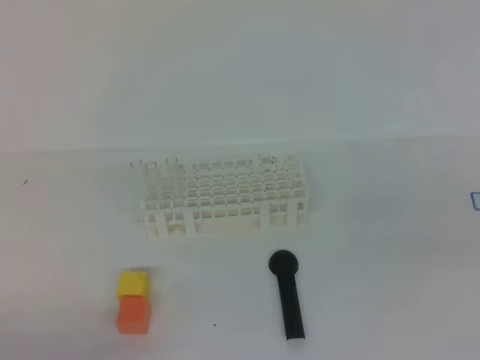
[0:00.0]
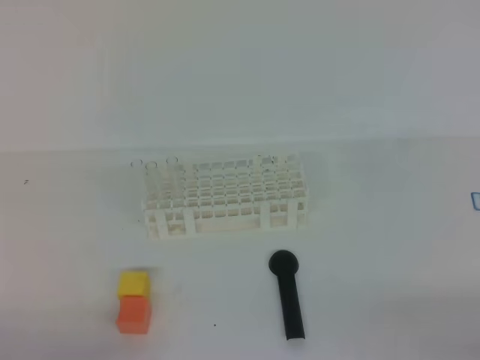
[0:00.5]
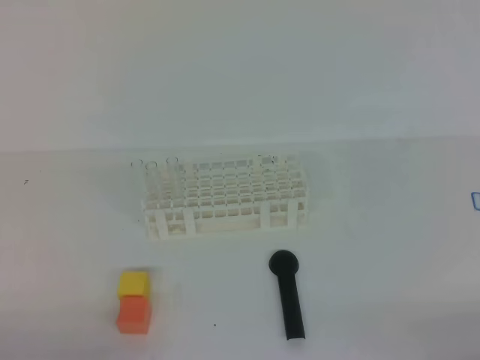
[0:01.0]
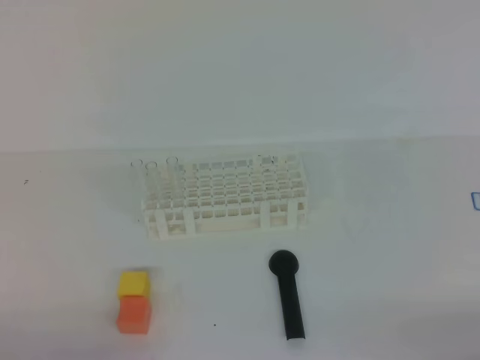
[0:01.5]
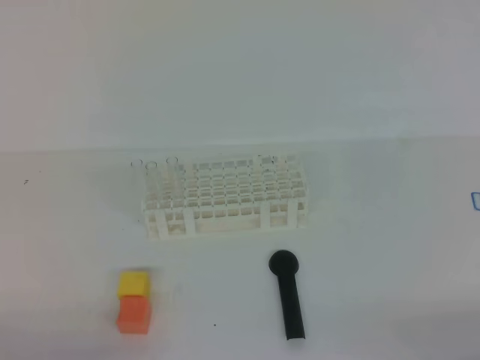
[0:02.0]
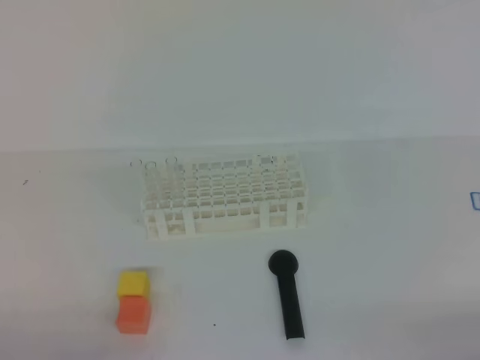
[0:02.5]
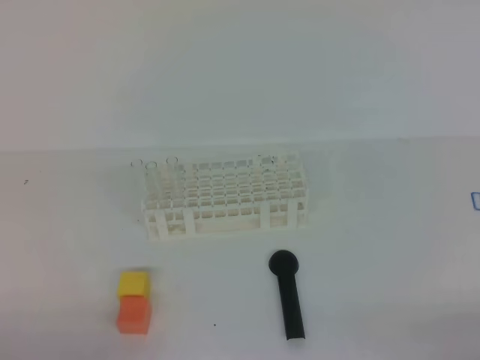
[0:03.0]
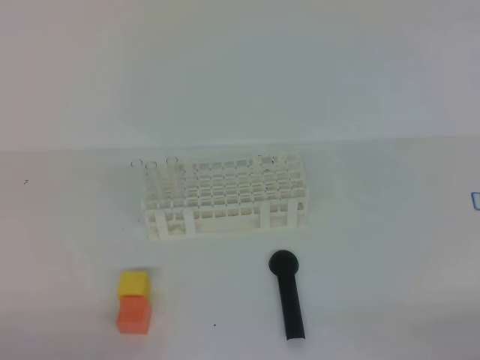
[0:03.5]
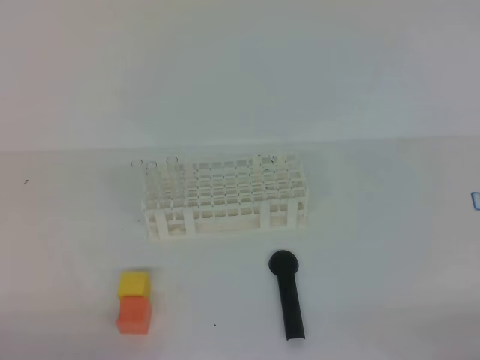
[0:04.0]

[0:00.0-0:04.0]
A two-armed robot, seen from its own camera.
0:02.0 to 0:04.0: Both grippers stay about where they are.

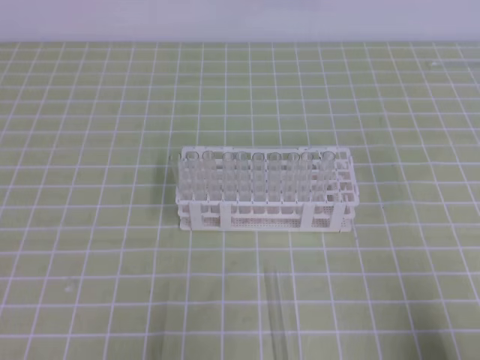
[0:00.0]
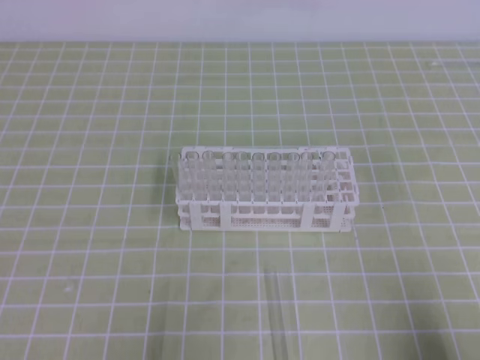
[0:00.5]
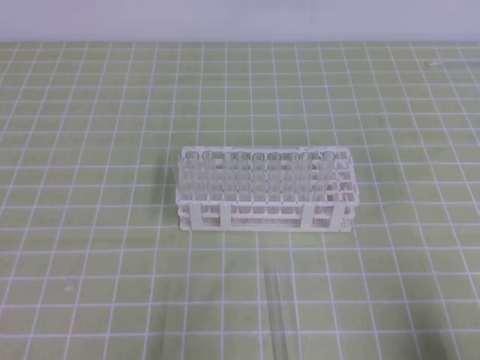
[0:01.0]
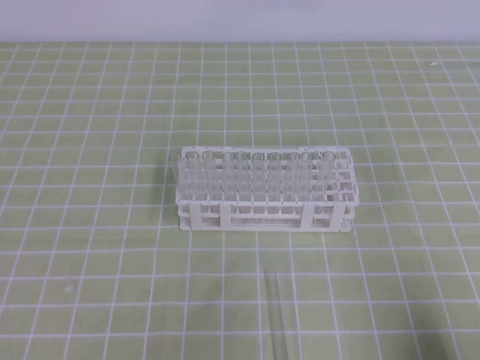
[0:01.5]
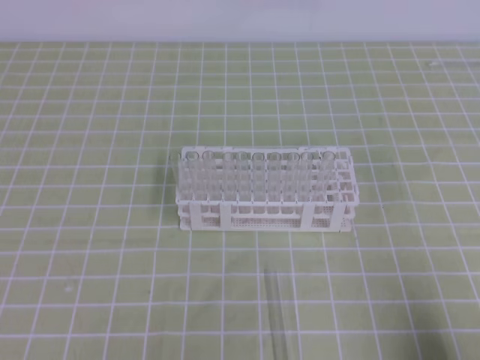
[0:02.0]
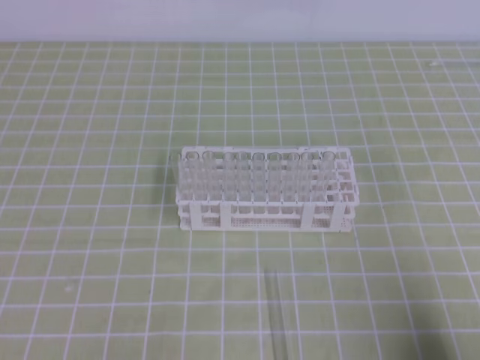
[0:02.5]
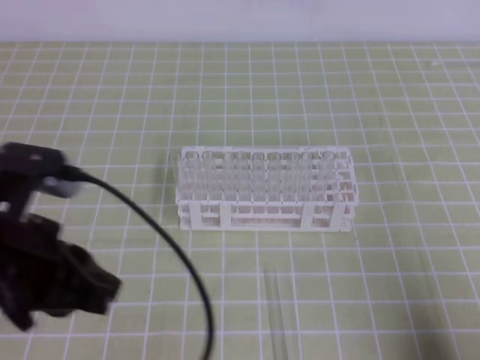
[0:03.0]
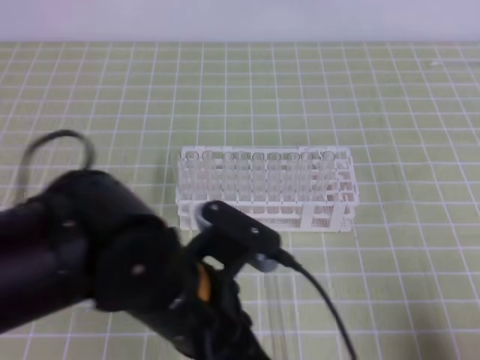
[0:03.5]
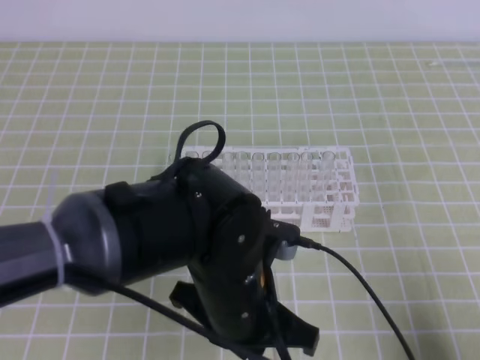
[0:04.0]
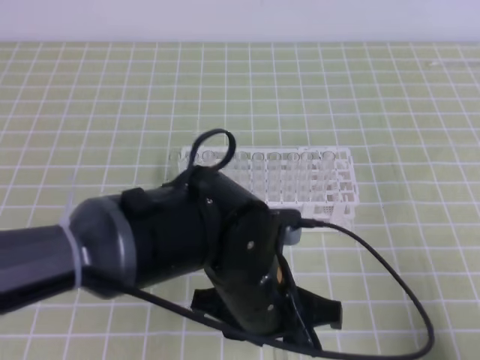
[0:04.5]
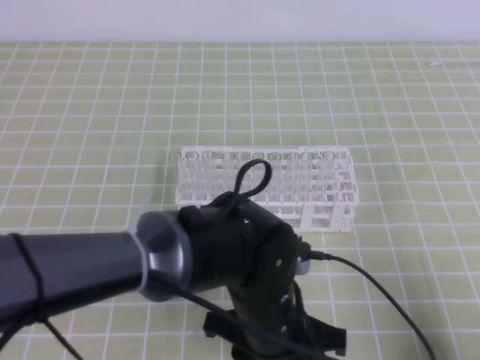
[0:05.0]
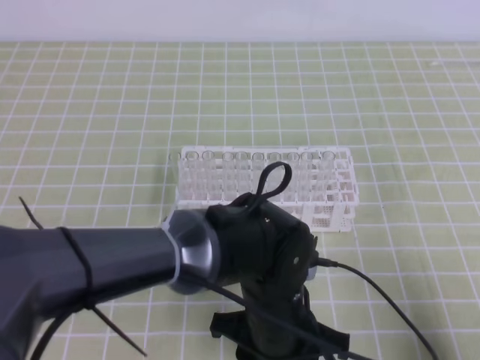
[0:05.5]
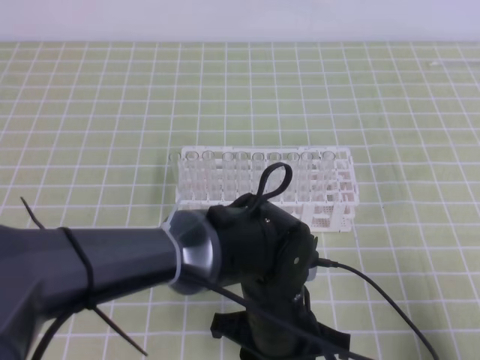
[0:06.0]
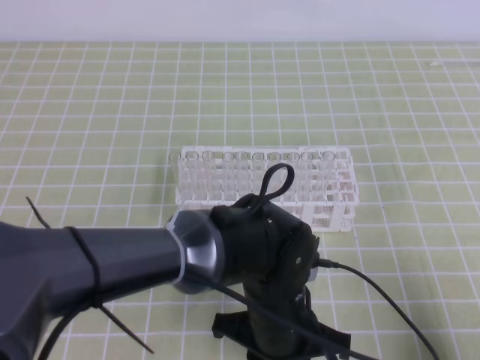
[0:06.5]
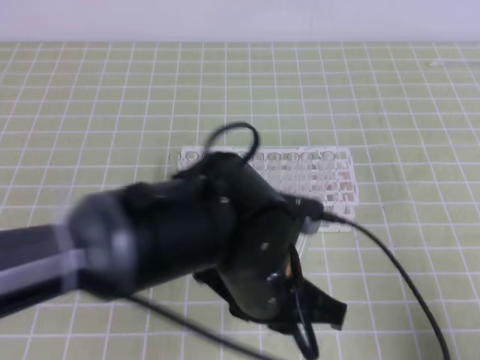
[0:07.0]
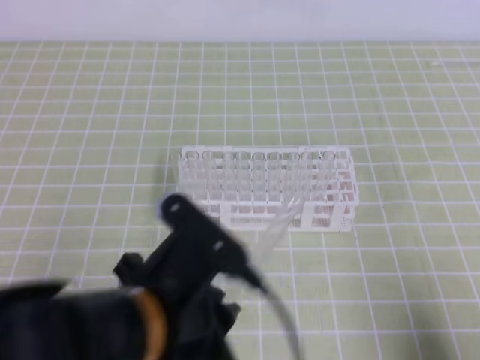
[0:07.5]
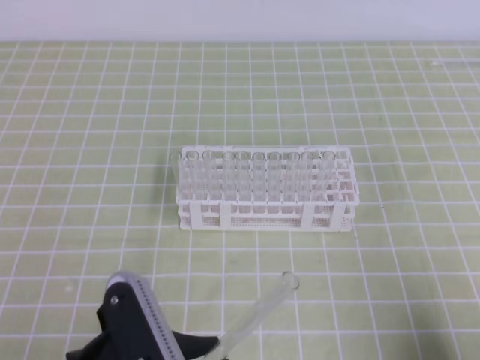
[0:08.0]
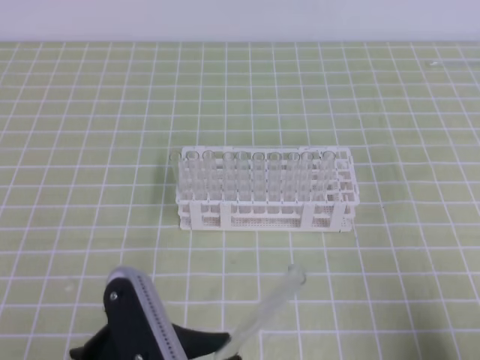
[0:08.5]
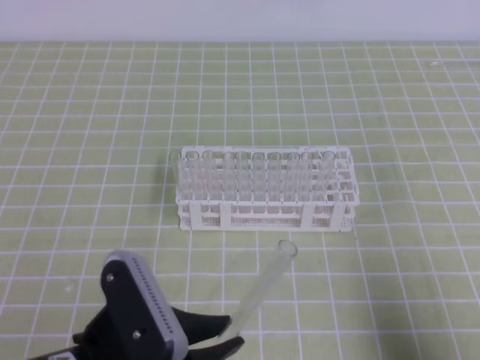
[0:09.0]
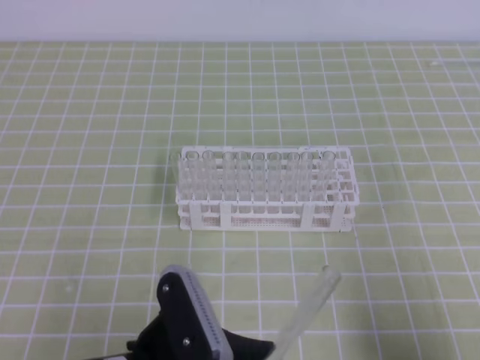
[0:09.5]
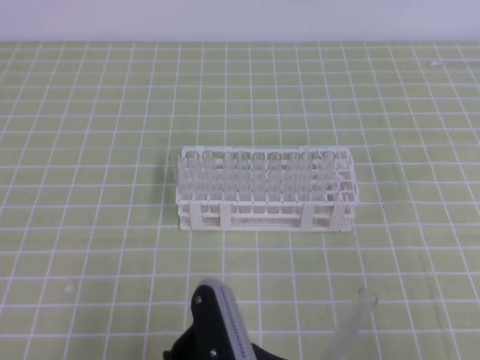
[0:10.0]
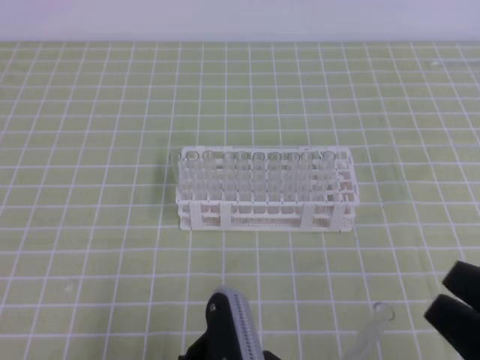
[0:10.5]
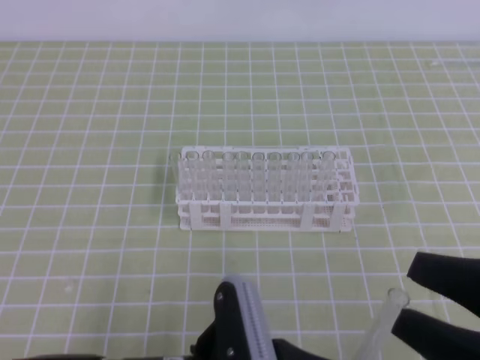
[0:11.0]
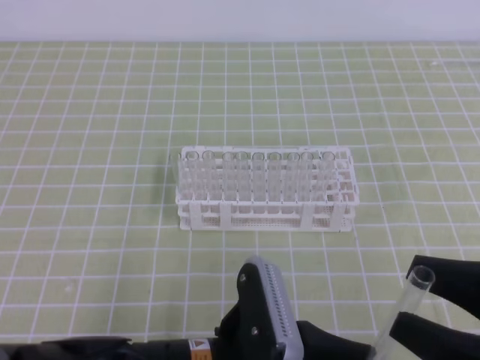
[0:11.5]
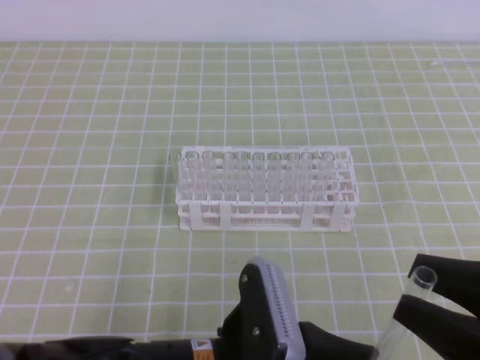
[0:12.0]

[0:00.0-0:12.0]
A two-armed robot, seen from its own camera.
0:02.0 to 0:04.0: The left gripper is displaced to the right and forward by approximately 30 cm.
0:04.0 to 0:06.0: The left gripper travels downward by about 5 cm, and opens.
0:06.0 to 0:08.0: The left gripper heads to the left, backward and upward, covering some 20 cm.
0:08.0 to 0:10.0: The right gripper ends up approximately 5 cm from where it was; the left gripper travels to the right by about 5 cm.
0:10.0 to 0:12.0: The right gripper ends up approximately 5 cm from where it was, and opens its fingers.

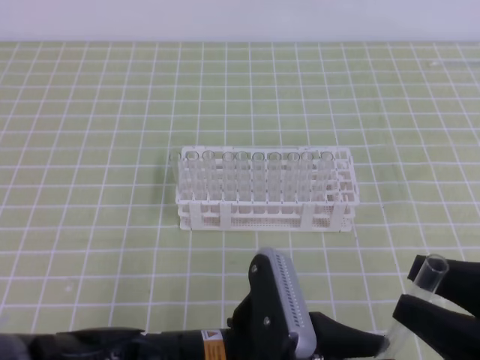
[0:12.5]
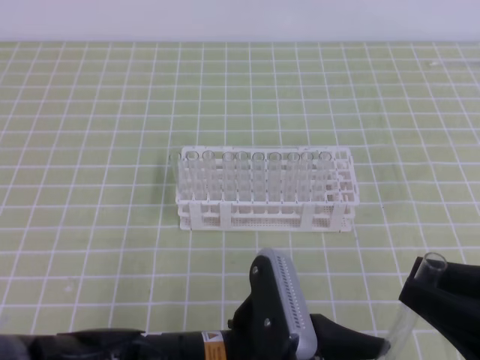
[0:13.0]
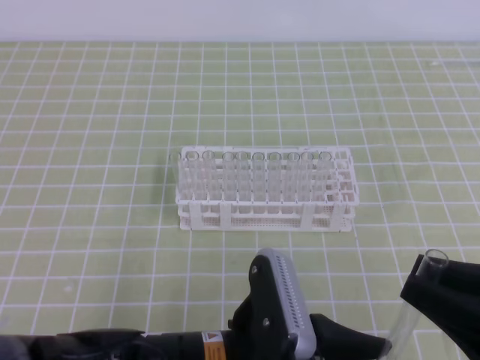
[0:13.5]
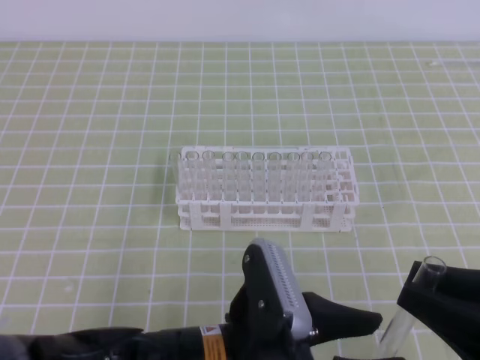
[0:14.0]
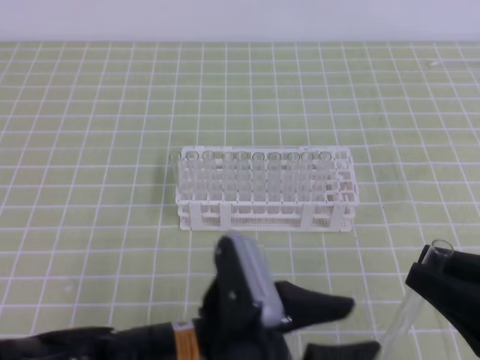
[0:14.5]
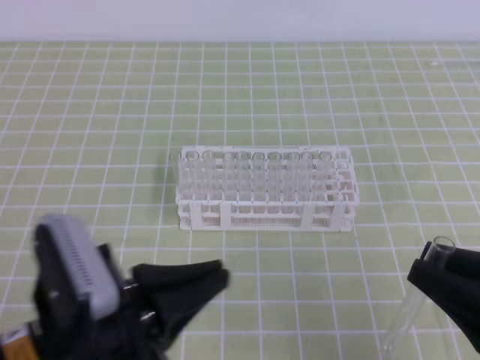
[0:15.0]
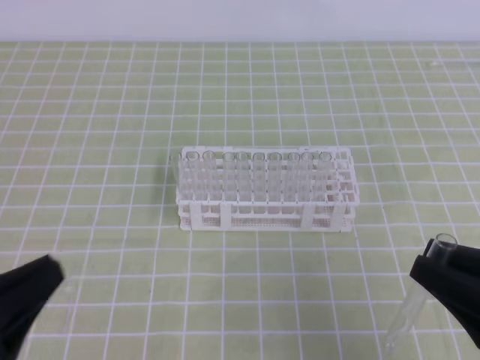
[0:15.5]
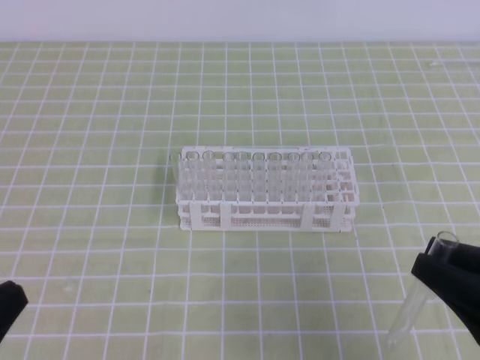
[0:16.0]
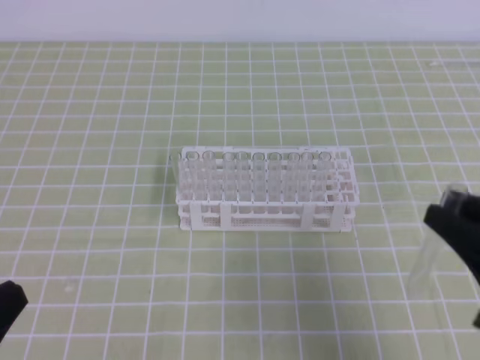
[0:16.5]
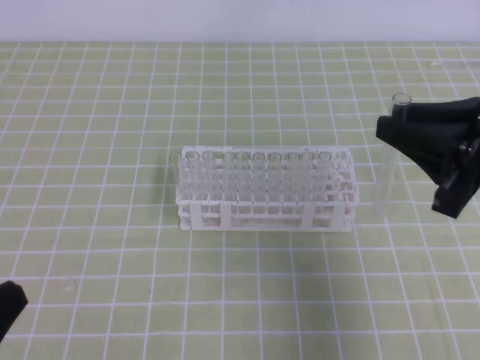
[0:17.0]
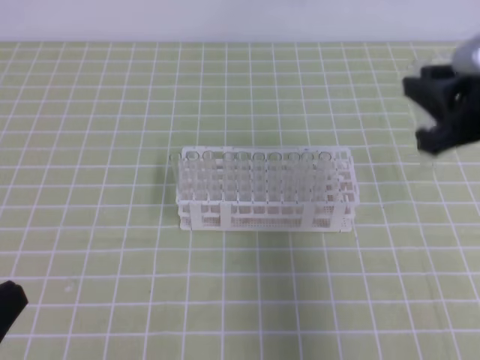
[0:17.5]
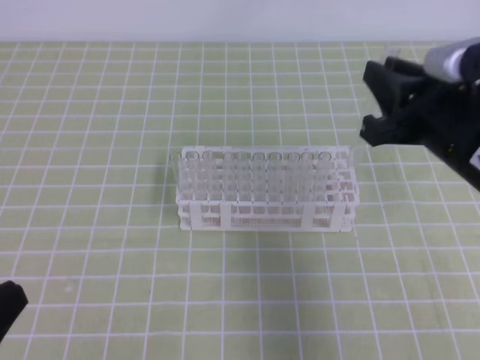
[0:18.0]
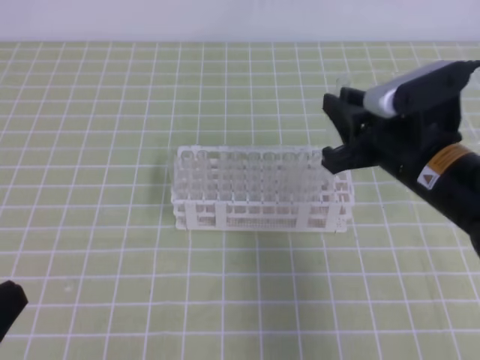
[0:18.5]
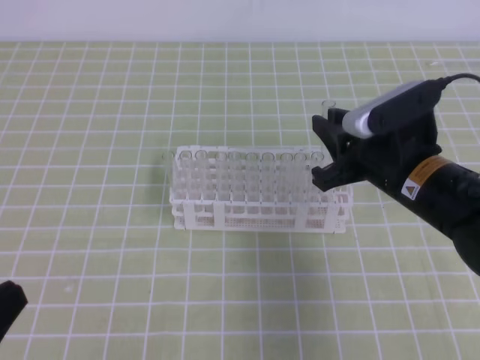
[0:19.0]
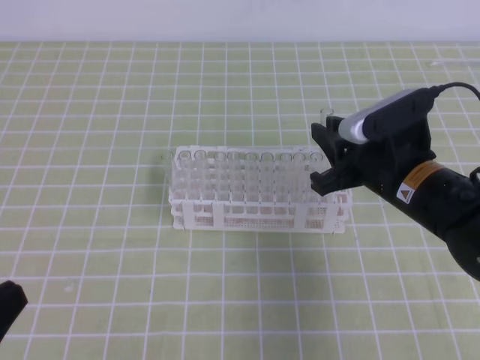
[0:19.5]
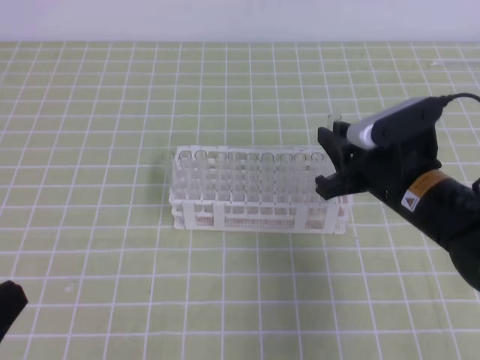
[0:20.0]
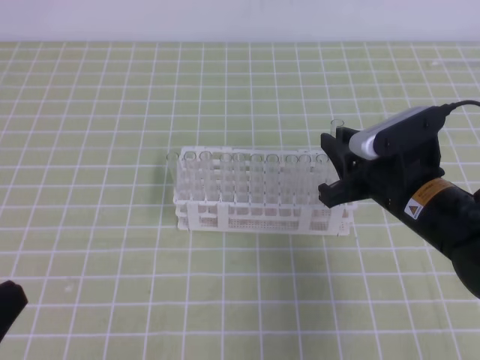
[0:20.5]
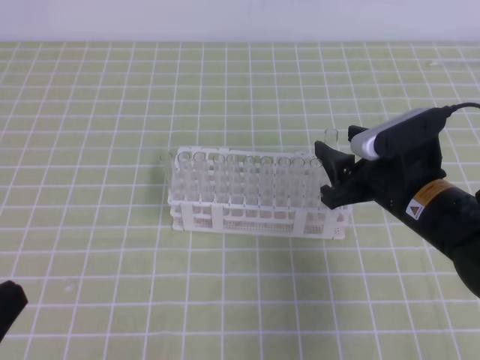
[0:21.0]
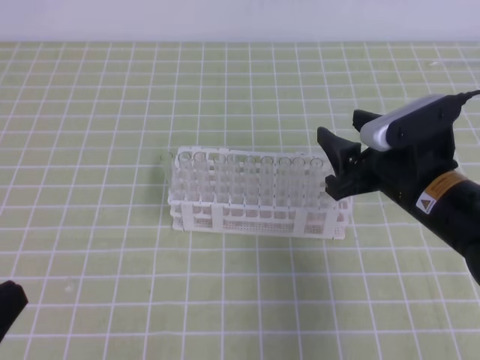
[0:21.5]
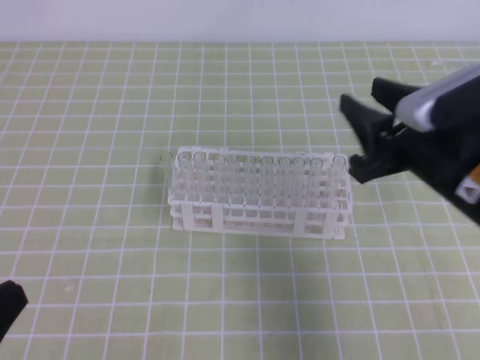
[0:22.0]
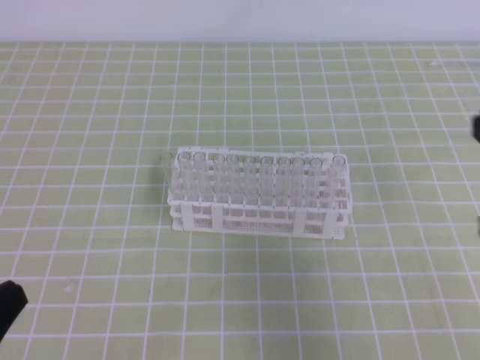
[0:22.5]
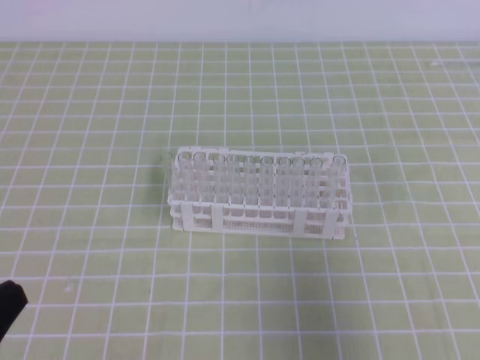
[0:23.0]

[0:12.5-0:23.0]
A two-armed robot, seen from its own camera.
0:12.5 to 0:14.5: The left gripper opens. Meanwhile the right gripper closes.
0:14.5 to 0:16.5: The left gripper heads to the left, covering approximately 20 cm, and closes.
0:16.5 to 0:19.0: The right gripper heads forward and to the left, covering some 20 cm.
0:19.0 to 0:21.0: The right gripper opens.
0:21.0 to 0:23.0: The right gripper is displaced backward, to the right and upward by roughly 25 cm, and closes up.
